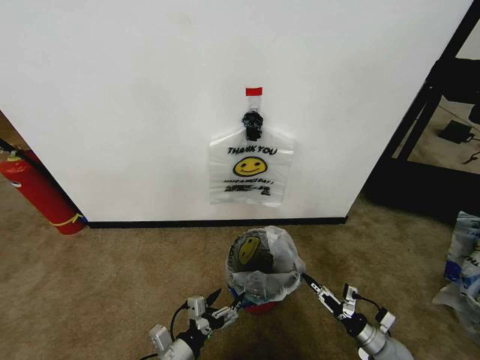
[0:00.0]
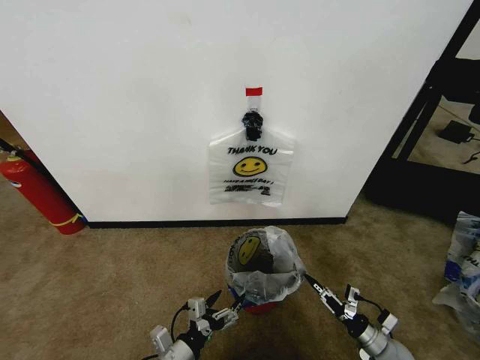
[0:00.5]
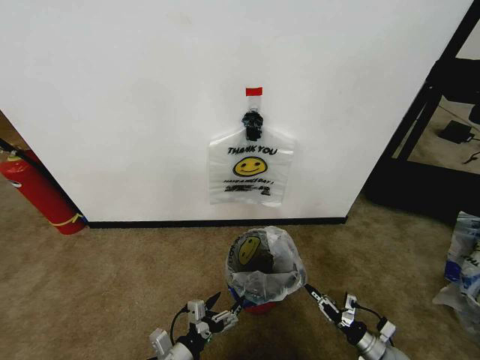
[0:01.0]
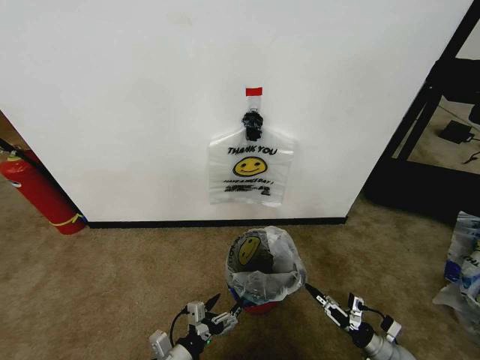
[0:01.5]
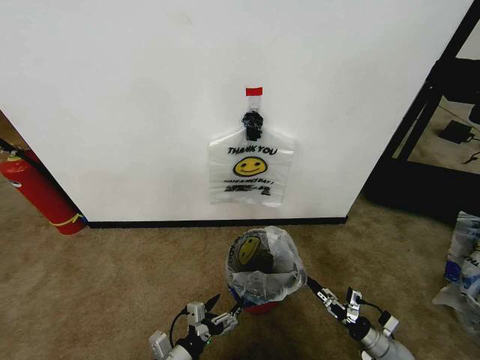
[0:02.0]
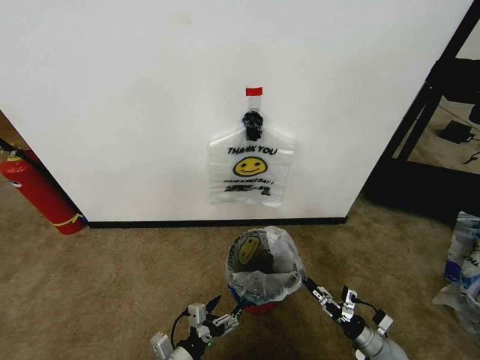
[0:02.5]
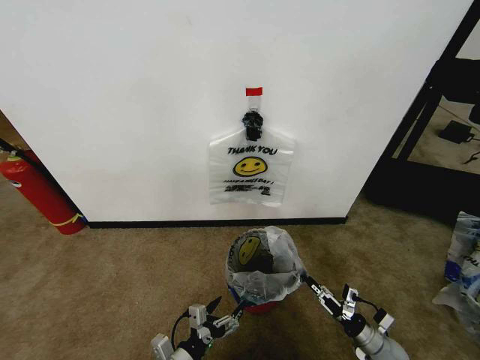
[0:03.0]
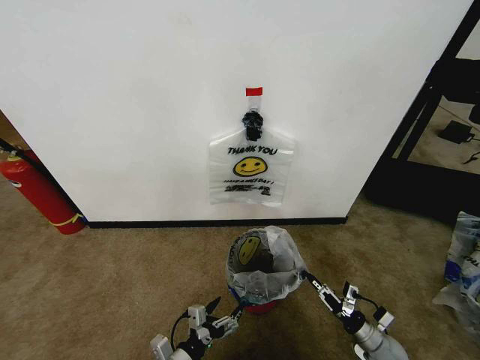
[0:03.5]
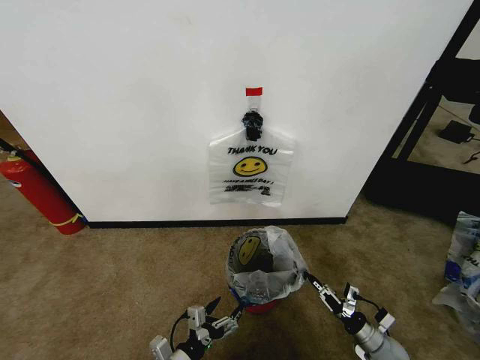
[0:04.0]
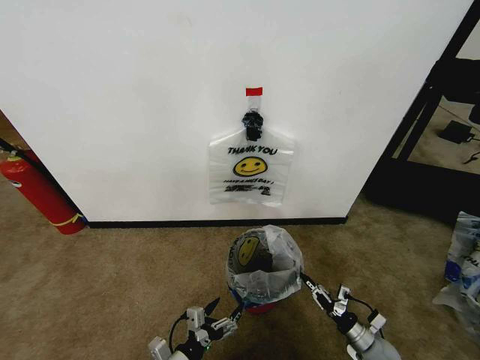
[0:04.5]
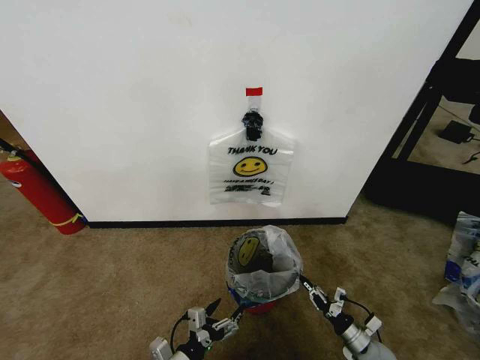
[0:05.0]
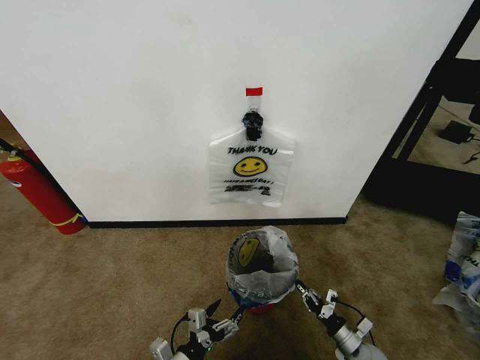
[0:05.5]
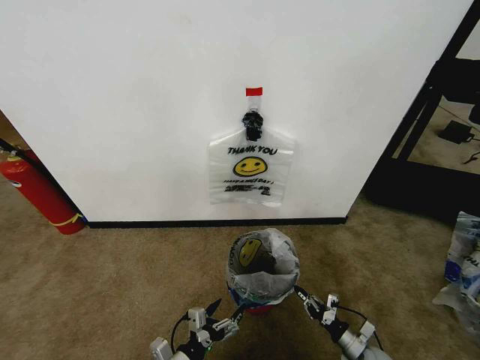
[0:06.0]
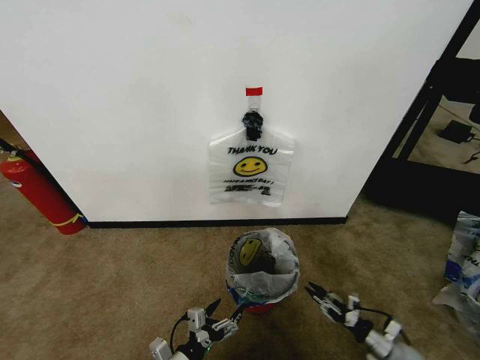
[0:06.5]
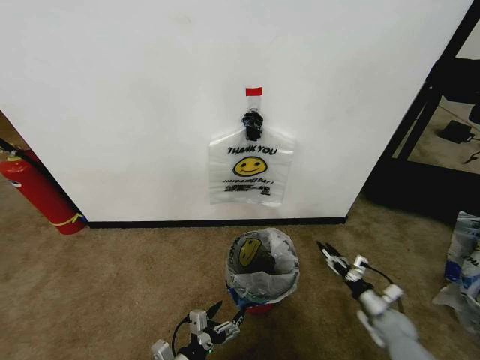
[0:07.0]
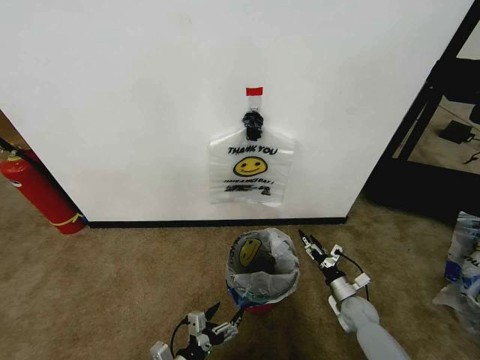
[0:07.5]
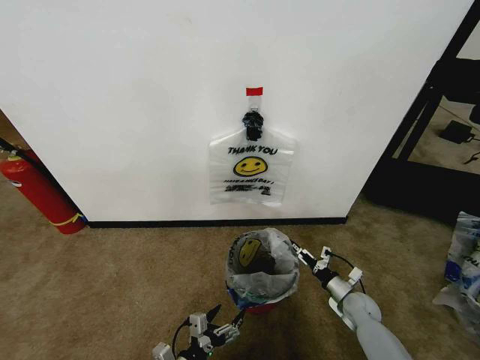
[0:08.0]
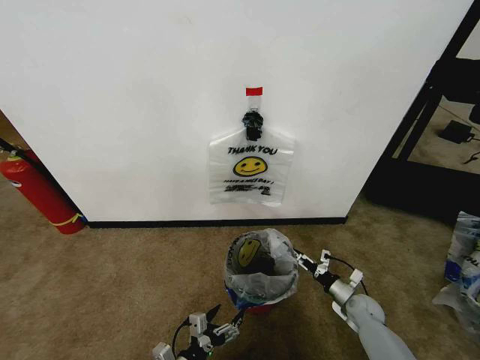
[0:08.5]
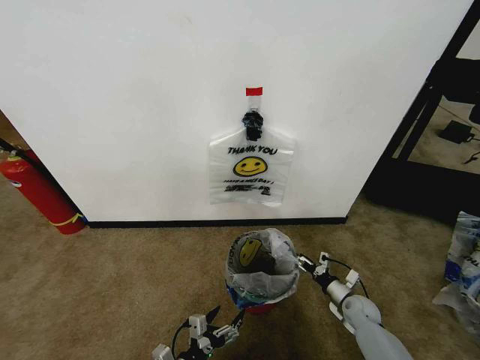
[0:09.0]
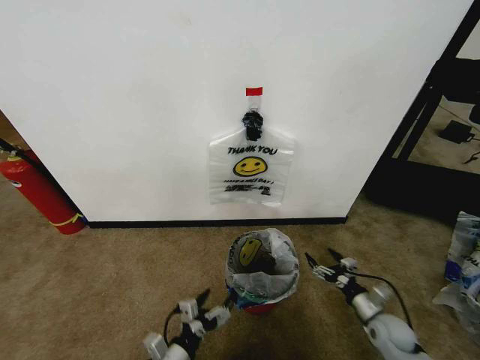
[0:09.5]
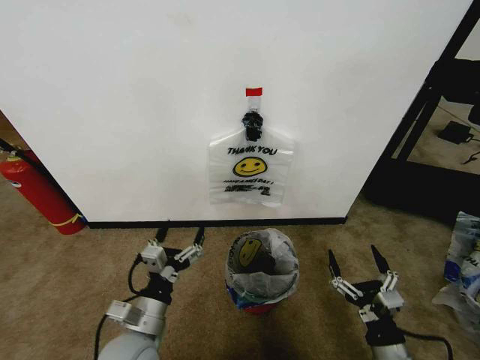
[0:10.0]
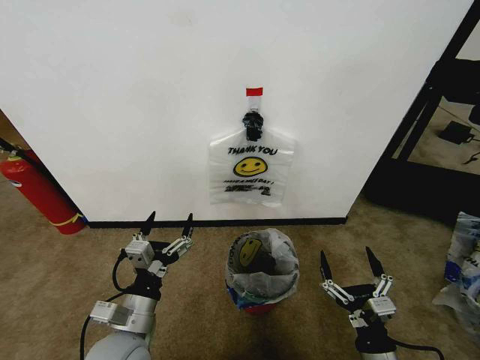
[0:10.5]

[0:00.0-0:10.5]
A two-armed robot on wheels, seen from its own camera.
Task of the whole recording: Pick up the garbage bag from the wall and place it over the trash bin.
0:00.0 to 0:02.0: The right gripper opens its fingers.
0:02.0 to 0:04.0: The right gripper closes.
0:04.0 to 0:06.5: The right gripper opens its fingers.
0:06.5 to 0:08.5: The right gripper travels forward, to the left and upward by some 15 cm, and opens.
0:08.5 to 0:10.5: The right gripper is displaced backward, upward and to the left by approximately 30 cm; the left gripper shifts approximately 15 cm upward.

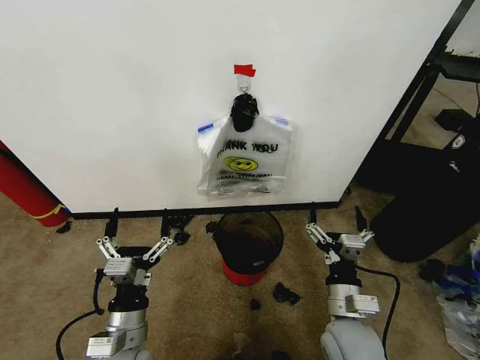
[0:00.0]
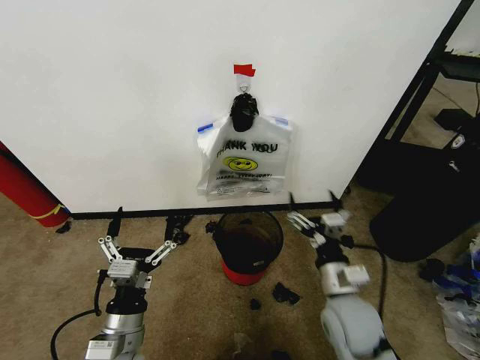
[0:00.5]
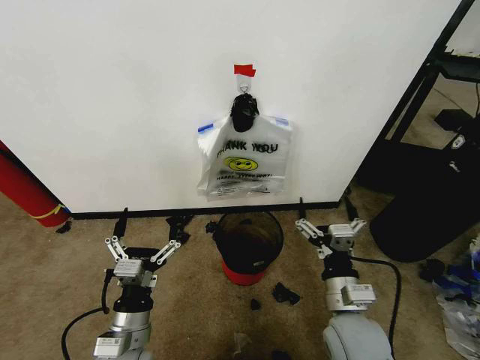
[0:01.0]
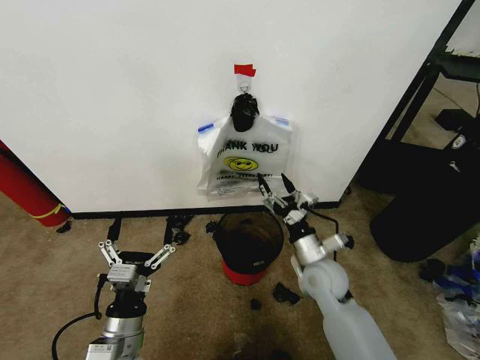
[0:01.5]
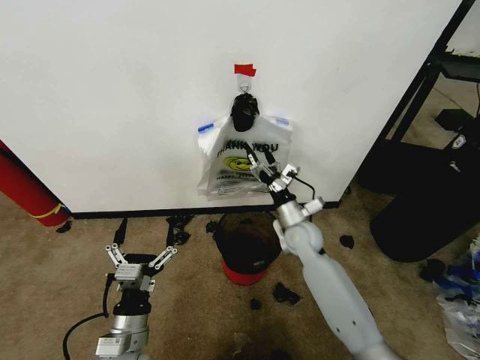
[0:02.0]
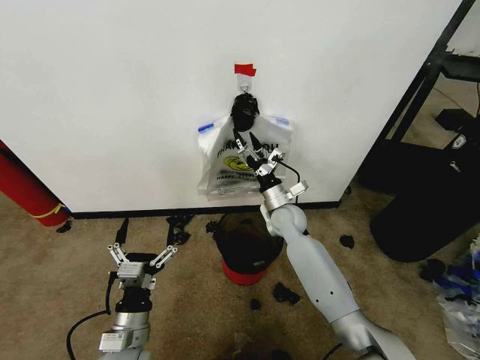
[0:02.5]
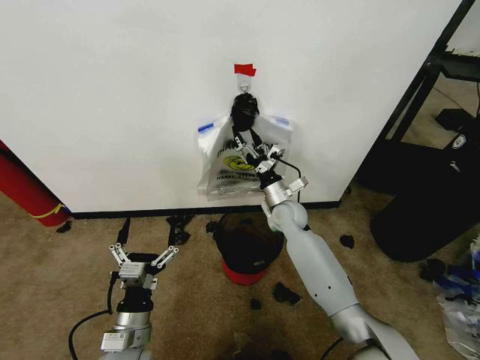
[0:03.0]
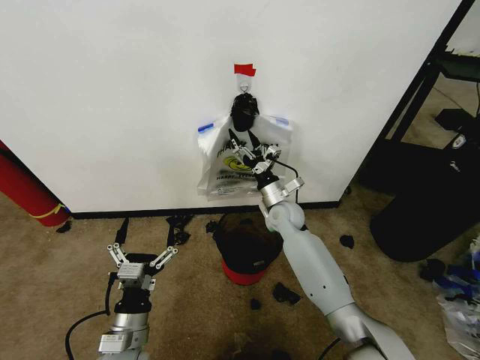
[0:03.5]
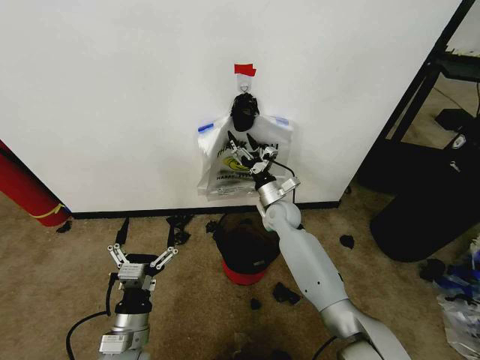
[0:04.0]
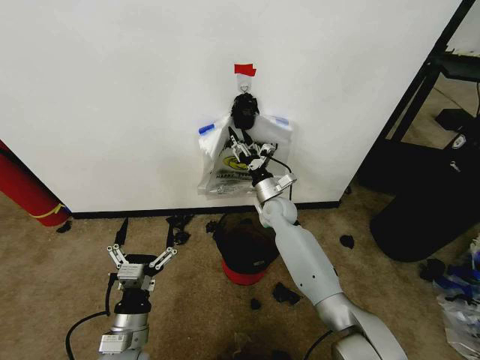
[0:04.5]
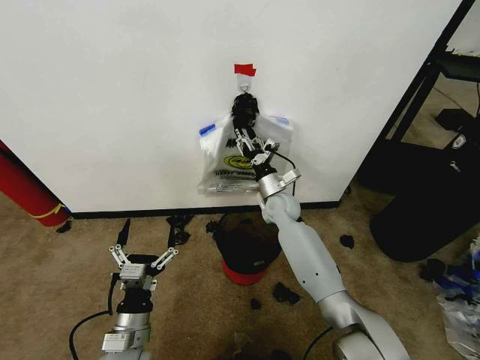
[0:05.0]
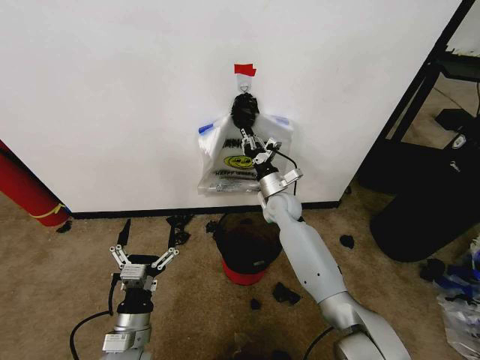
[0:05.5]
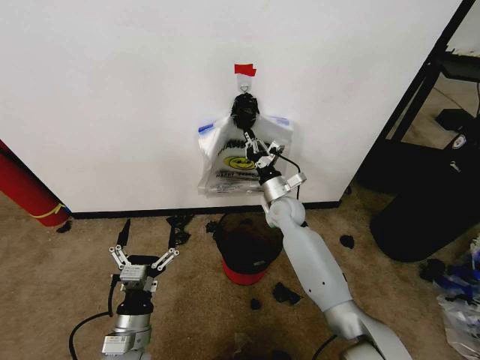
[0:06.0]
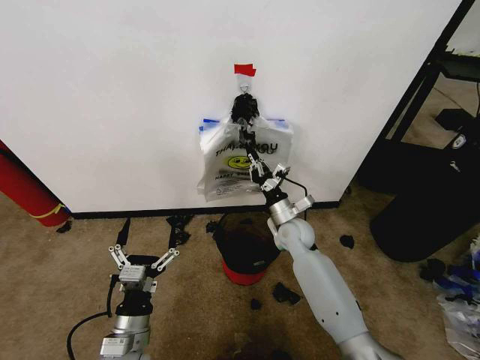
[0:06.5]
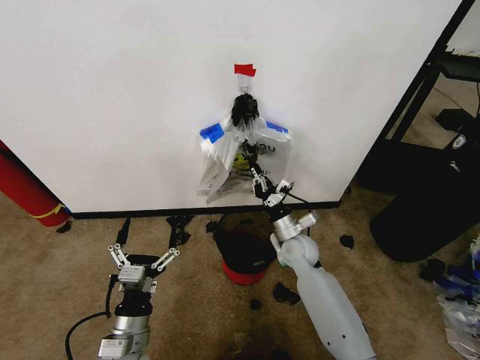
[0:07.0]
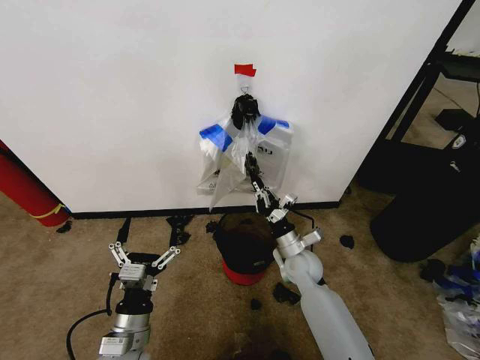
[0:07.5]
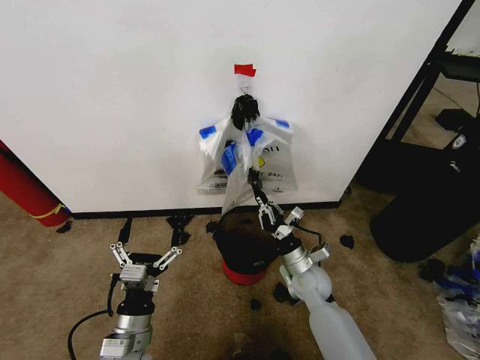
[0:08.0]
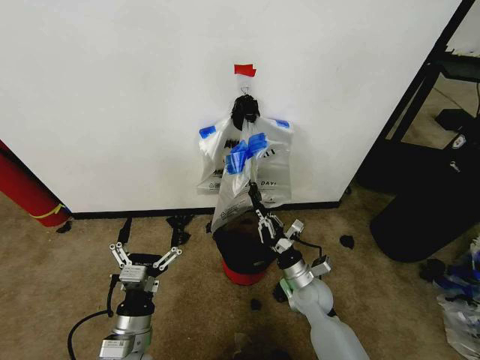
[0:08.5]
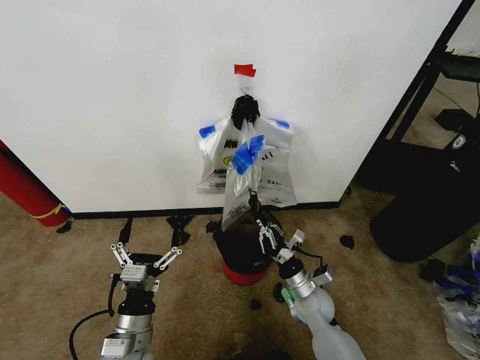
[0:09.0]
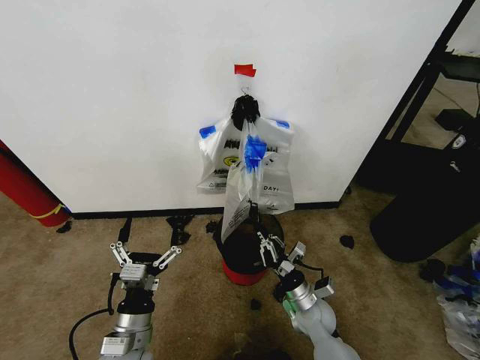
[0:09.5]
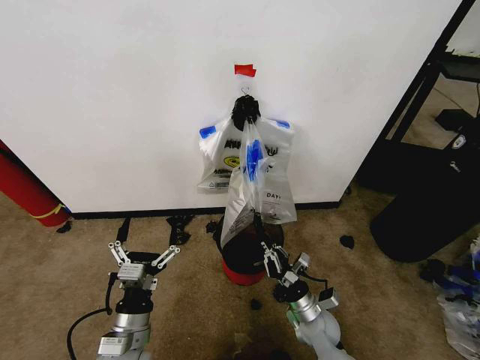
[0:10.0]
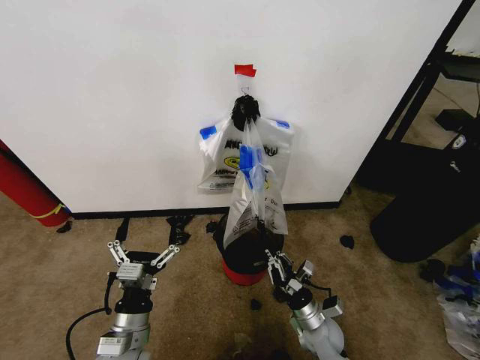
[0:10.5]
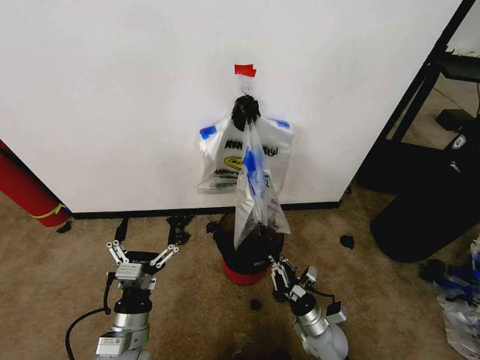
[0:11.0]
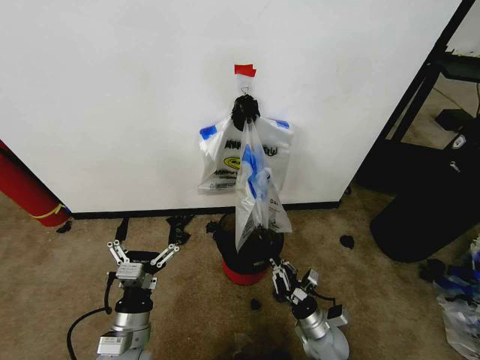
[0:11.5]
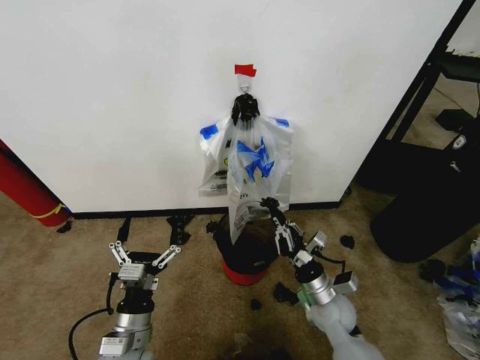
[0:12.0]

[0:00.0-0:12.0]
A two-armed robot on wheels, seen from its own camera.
Task of the whole recording: Pick up the garbage bag from the wall and place it over the trash bin.
0:02.0 to 0:04.0: The right gripper moves forward, about 5 cm.
0:04.0 to 0:06.0: The right gripper closes its fingers.
0:06.0 to 0:08.0: The right gripper shifts some 20 cm backward and downward.
0:08.0 to 0:10.0: The right gripper shifts approximately 10 cm backward and downward.
0:10.0 to 0:12.0: The right gripper shifts some 10 cm upward.

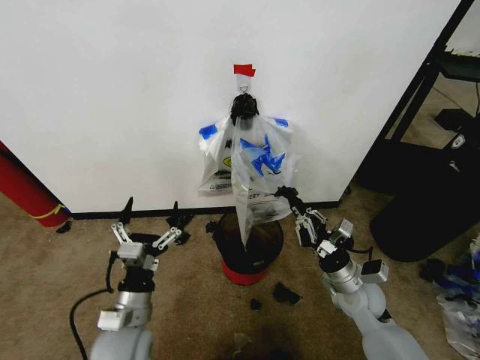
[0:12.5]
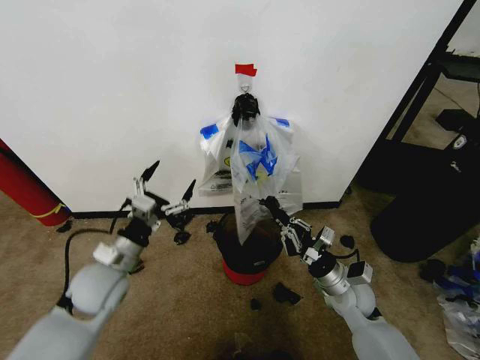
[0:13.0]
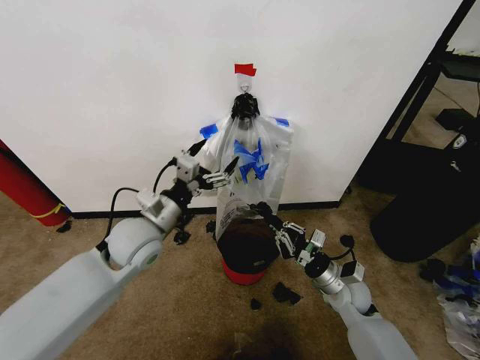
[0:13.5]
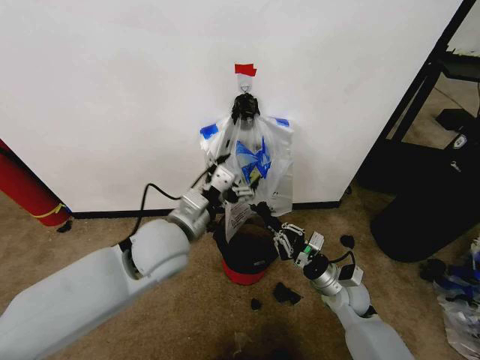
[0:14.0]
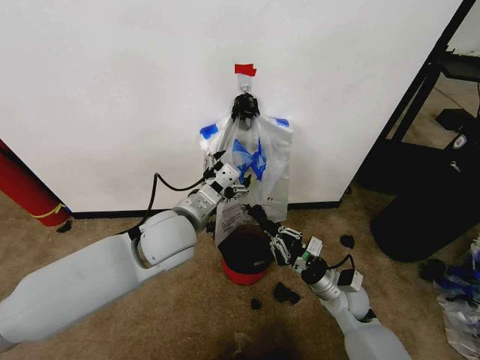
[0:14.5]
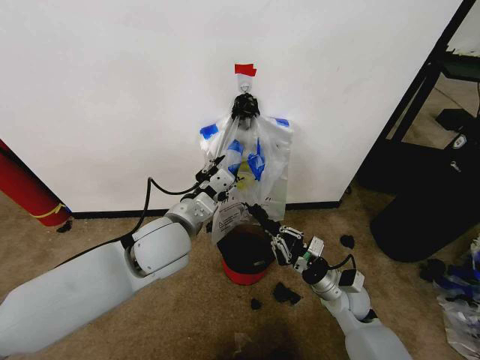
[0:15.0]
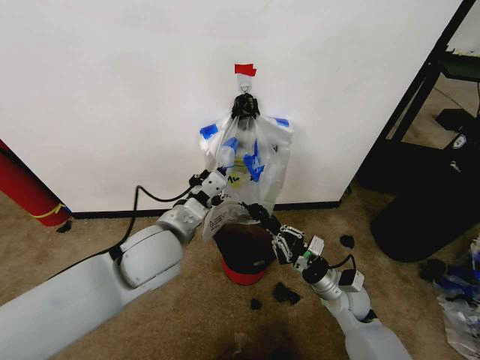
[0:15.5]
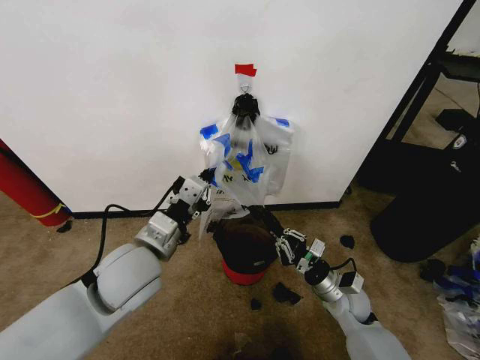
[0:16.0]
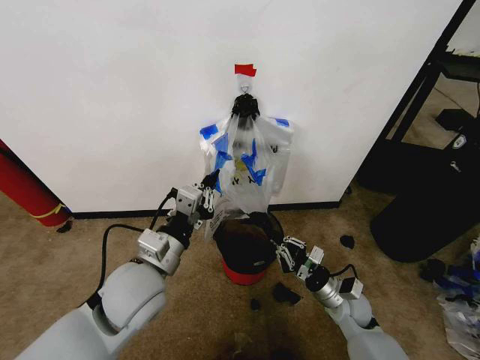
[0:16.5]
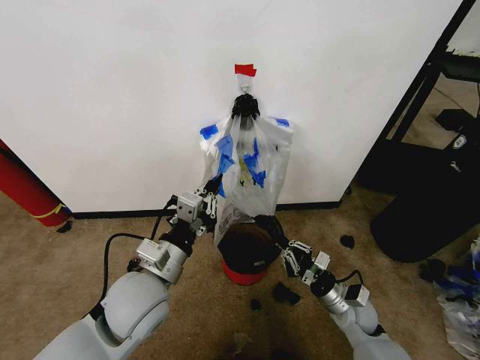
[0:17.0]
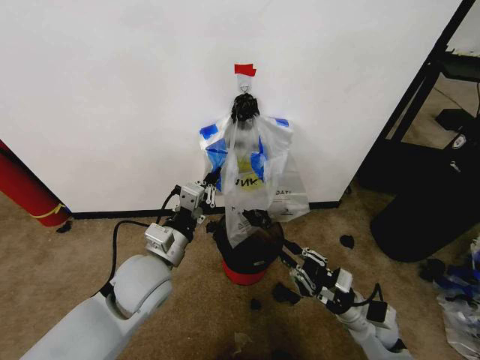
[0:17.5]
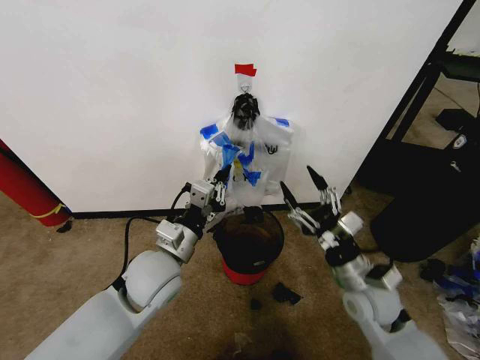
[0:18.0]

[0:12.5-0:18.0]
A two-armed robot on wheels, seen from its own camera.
Task of the whole recording: Pick up the garbage bag from the wall and place it over the trash bin.
0:12.5 to 0:14.5: The left gripper heads upward, forward and to the right, covering approximately 20 cm.
0:14.5 to 0:16.0: The left gripper is displaced backward and to the left by about 10 cm, and closes.
0:16.0 to 0:18.0: The left gripper changes place by some 5 cm. Meanwhile the right gripper goes approximately 10 cm upward, and opens its fingers.
